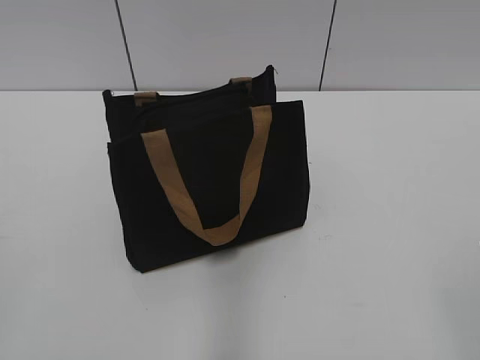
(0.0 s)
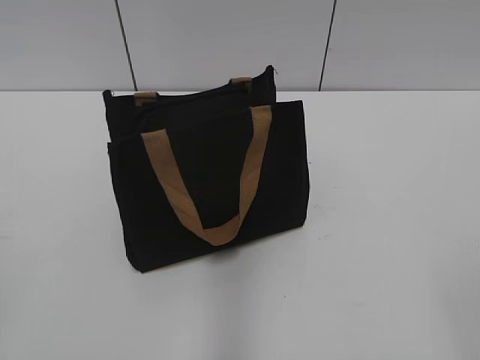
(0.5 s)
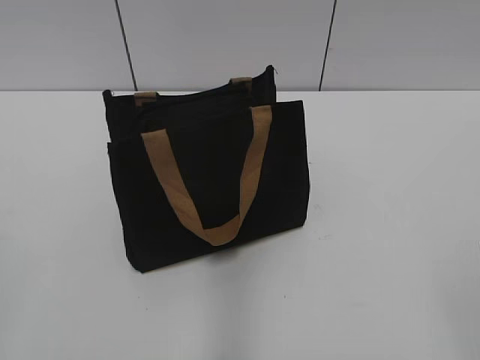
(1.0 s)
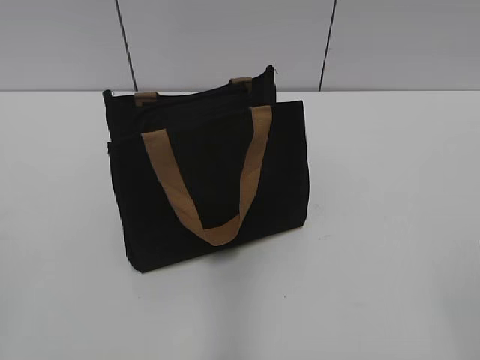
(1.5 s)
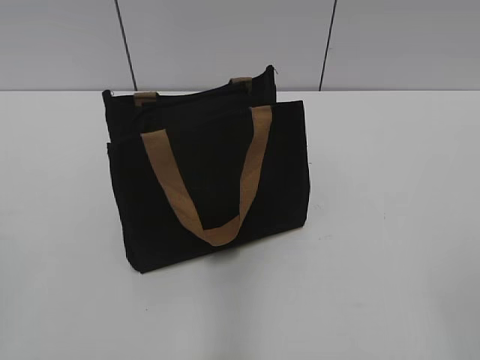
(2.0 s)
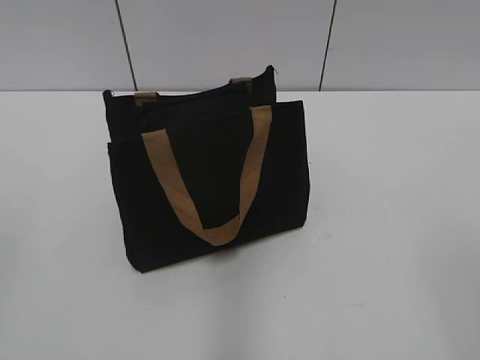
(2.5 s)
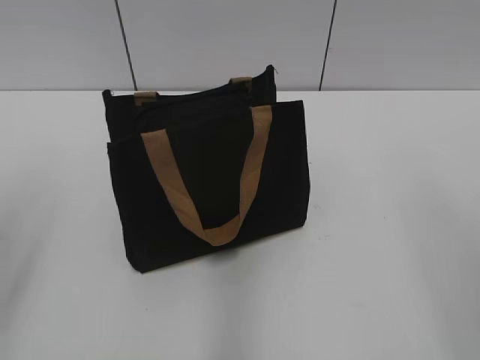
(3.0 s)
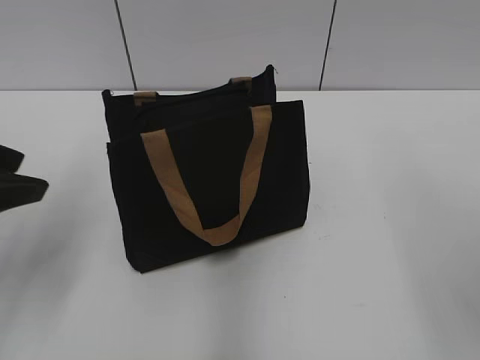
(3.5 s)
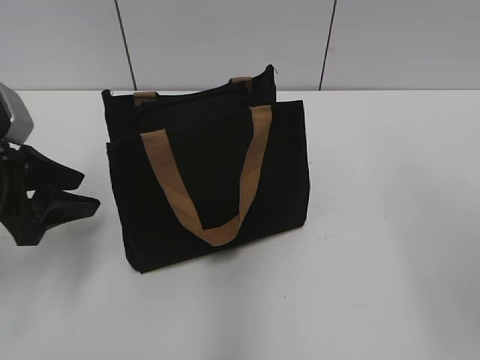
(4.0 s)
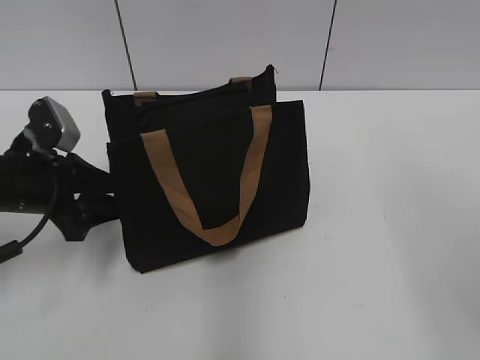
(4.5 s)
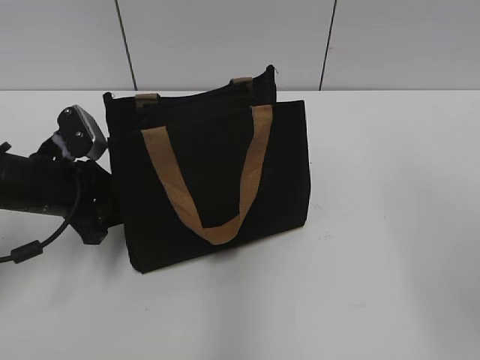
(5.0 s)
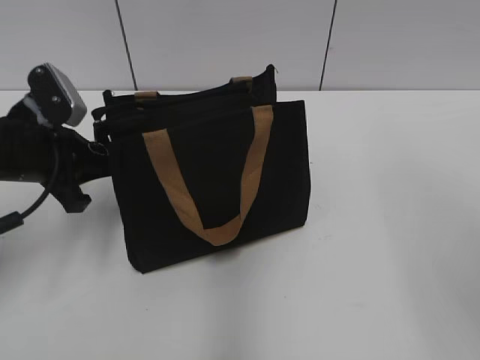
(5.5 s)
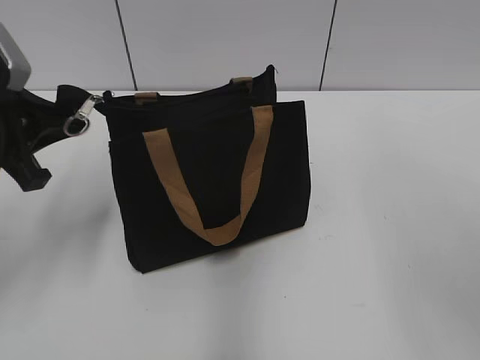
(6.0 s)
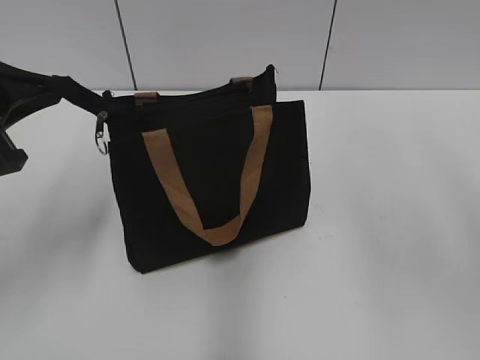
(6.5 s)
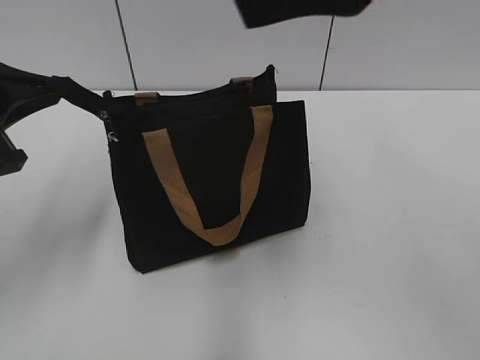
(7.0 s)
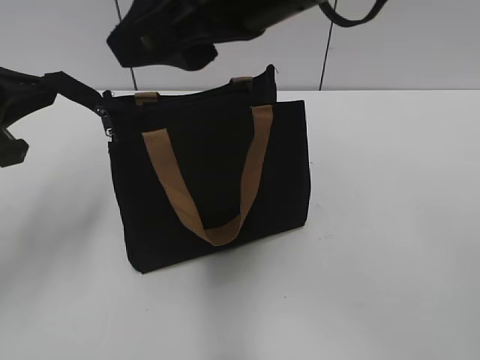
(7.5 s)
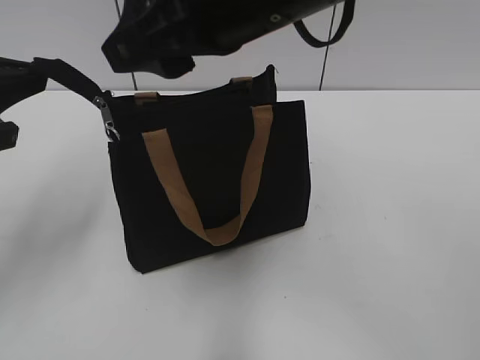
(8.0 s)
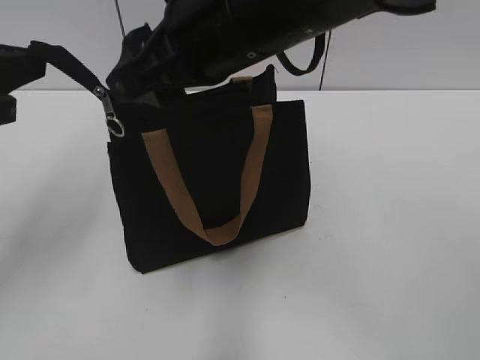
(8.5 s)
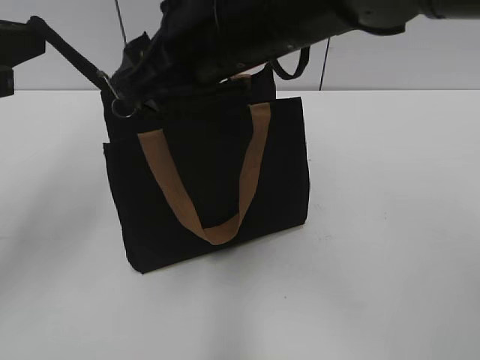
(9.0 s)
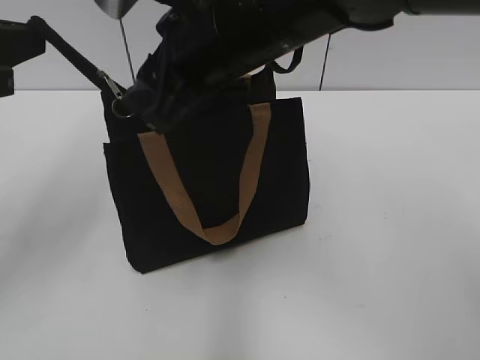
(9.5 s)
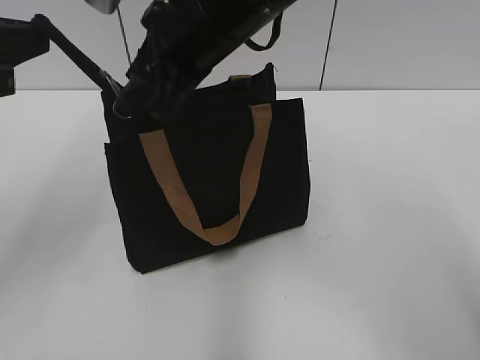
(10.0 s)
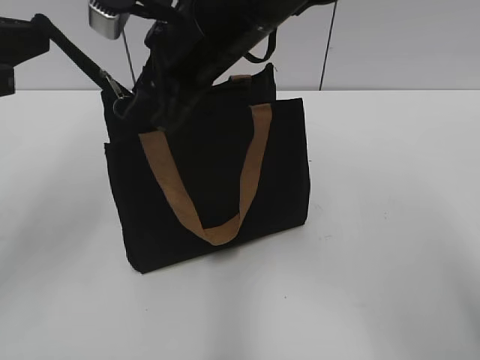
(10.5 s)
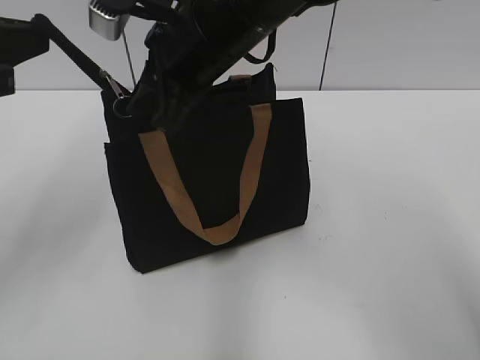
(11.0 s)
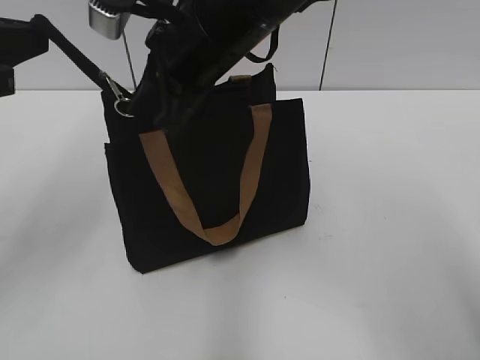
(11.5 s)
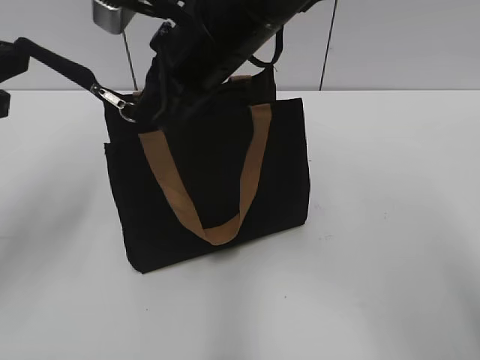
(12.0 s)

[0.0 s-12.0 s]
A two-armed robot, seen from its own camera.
2.0 to 4.0 s: The left gripper heads forward and downward, covering roughly 30 cm.
4.0 to 6.0 s: The left gripper is displaced upward by approximately 5 cm, and closes up.
6.0 to 8.0 s: The right gripper heads to the left and forward, covering roughly 25 cm.
8.0 to 10.0 s: The right gripper travels forward by roughly 5 cm.
10.0 to 12.0 s: The right gripper closes its fingers.

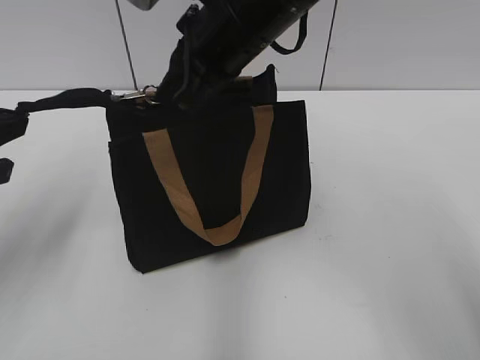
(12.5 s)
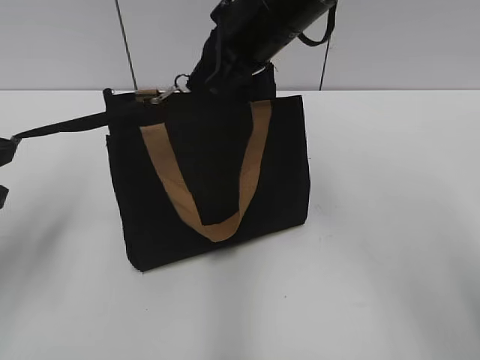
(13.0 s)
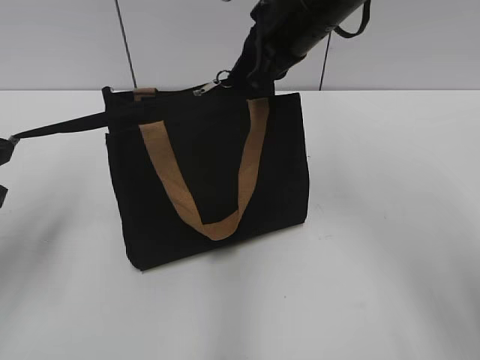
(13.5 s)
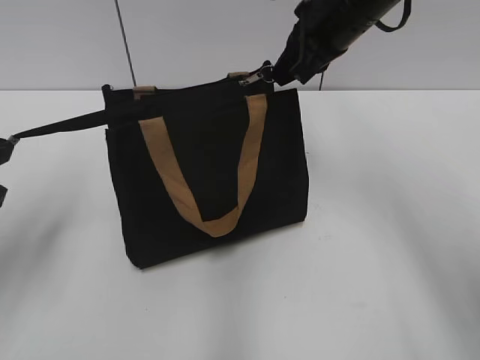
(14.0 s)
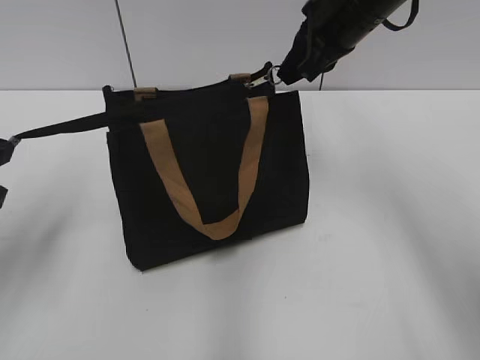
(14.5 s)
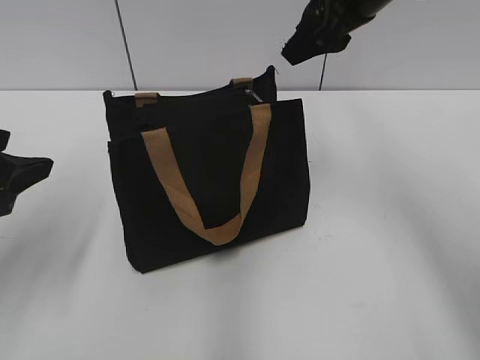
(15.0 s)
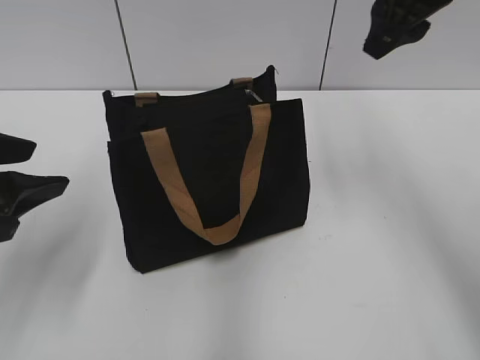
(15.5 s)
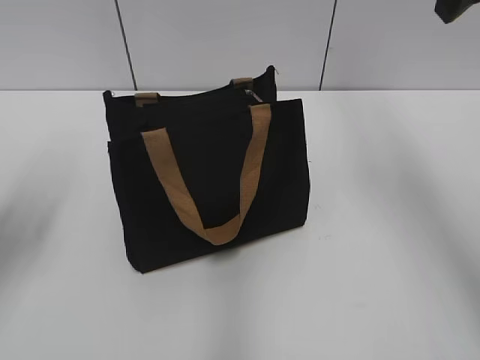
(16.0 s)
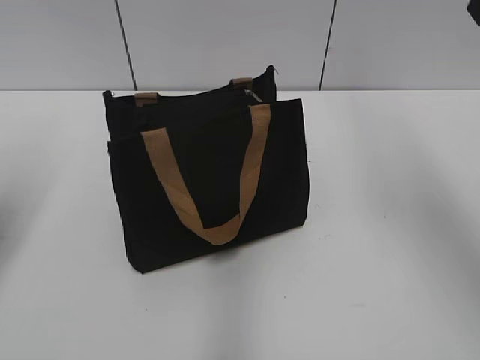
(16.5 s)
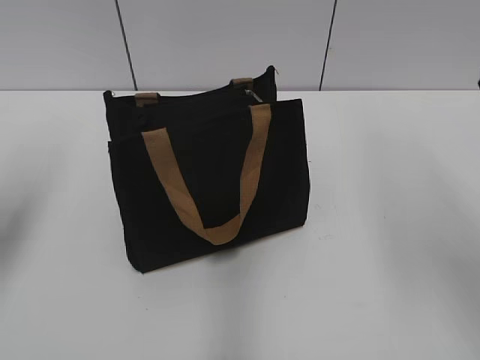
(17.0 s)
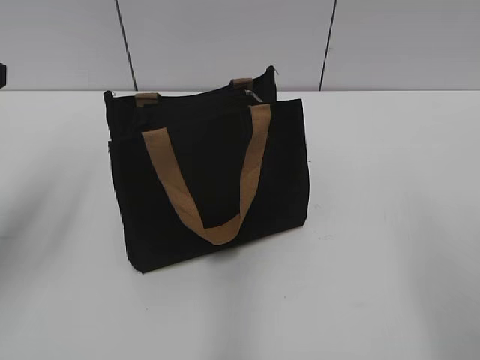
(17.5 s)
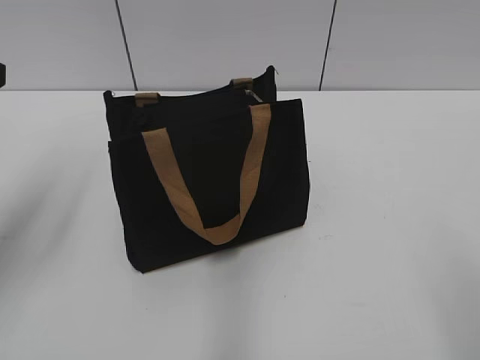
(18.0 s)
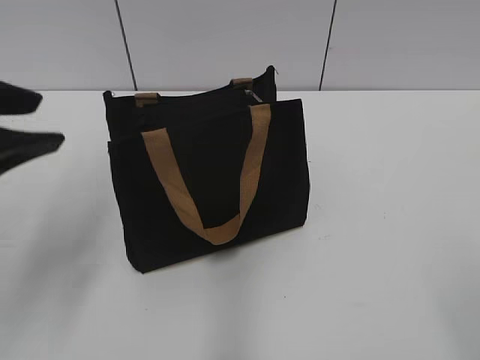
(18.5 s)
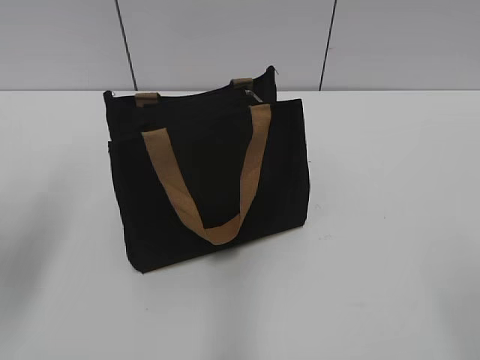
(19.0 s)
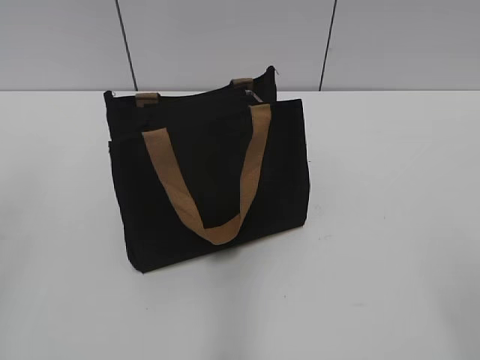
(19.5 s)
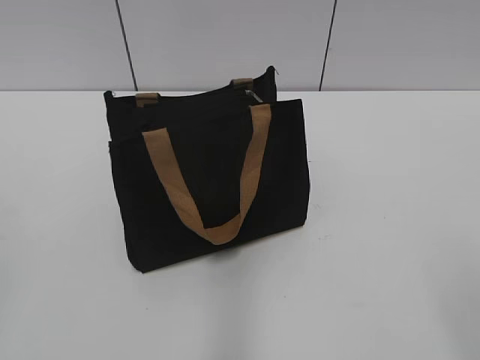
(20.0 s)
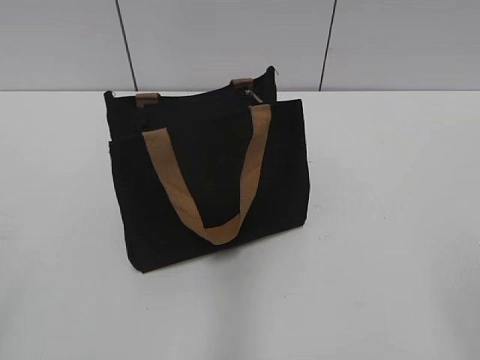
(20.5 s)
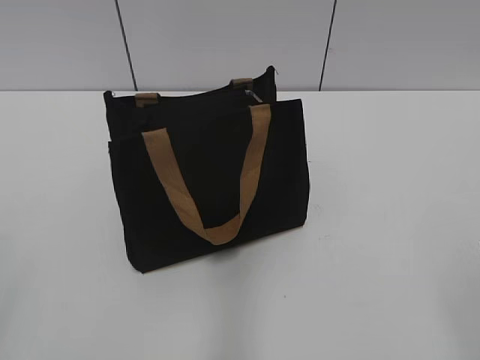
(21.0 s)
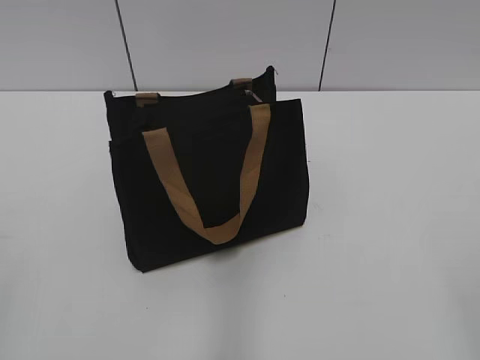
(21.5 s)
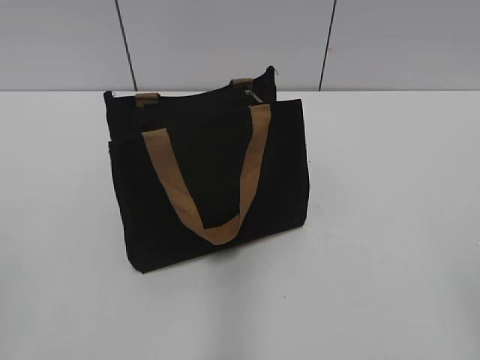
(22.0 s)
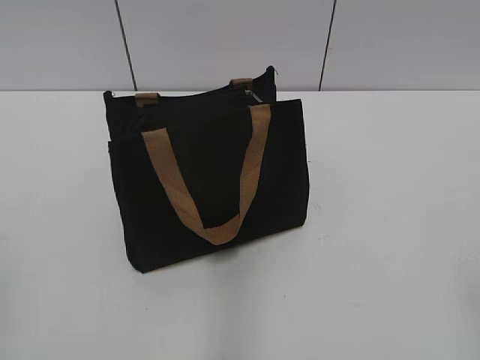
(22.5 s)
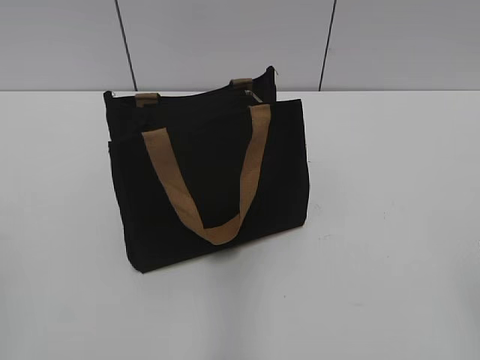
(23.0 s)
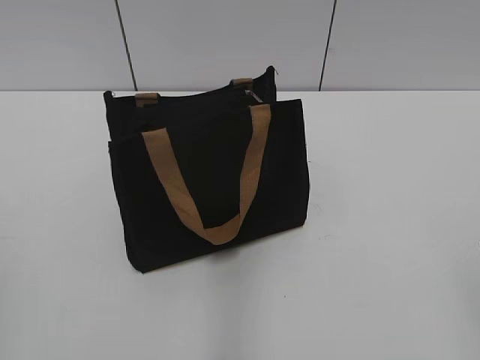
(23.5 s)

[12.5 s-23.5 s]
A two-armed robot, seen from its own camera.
Step, 12.5 to 14.5 s: Zip up the bag with your right hand.
12.5 to 14.5 s: The right gripper is displaced to the right and forward by about 15 cm.
14.5 to 16.0 s: The left gripper opens its fingers. Meanwhile the right gripper goes about 15 cm upward, to the right and backward, and opens.
16.0 to 18.0 s: The right gripper shifts approximately 30 cm backward.
18.0 to 20.0 s: The left gripper heads backward, covering roughly 20 cm.

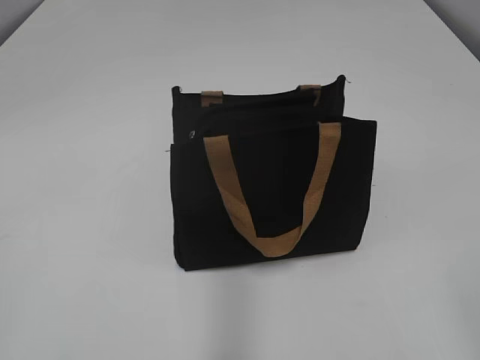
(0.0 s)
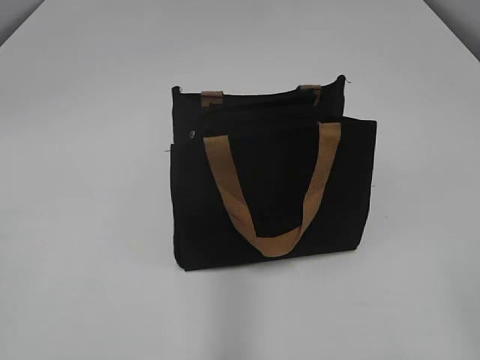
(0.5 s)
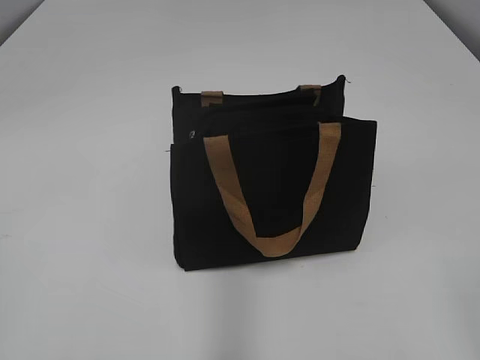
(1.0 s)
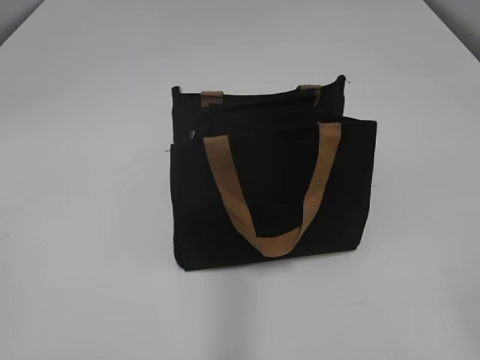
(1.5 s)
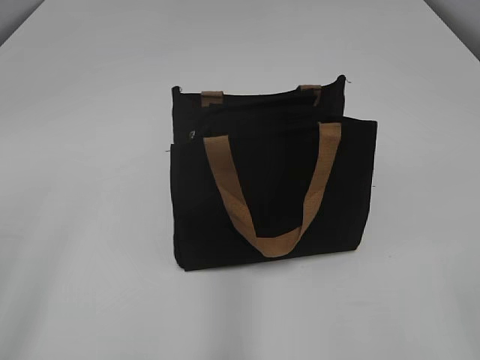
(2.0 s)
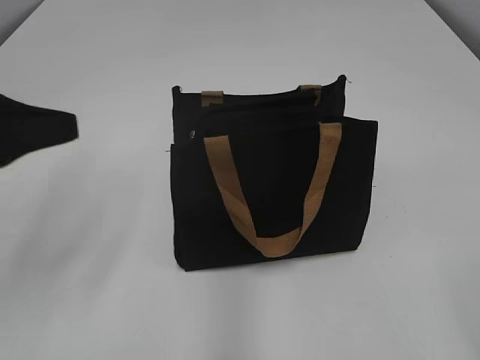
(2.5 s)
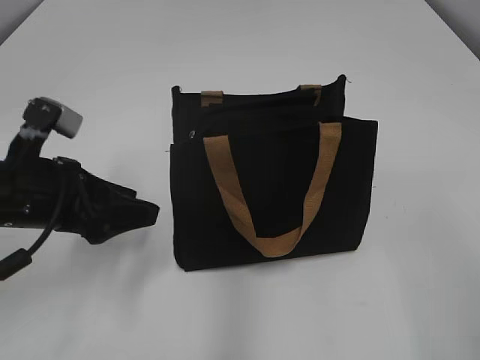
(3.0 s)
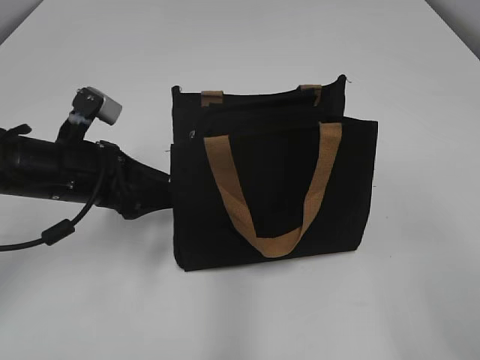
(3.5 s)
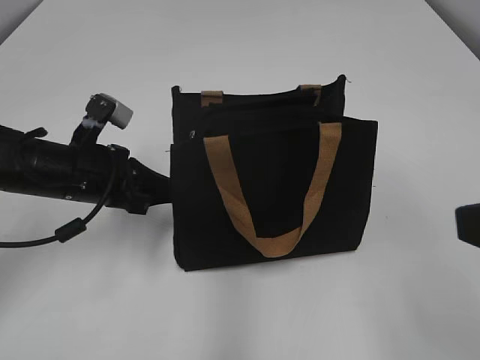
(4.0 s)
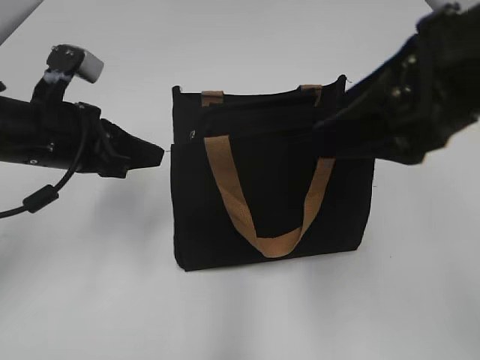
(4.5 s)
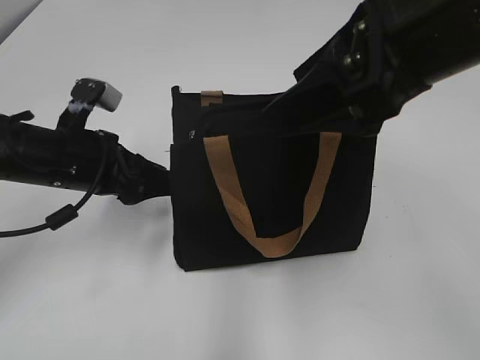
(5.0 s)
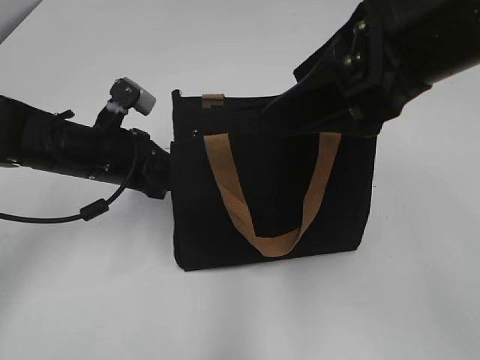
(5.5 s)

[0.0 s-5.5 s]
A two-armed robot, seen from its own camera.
2.0 to 3.5 s: The left gripper heads forward, downward and to the right, covering about 30 cm. The right gripper is displaced forward by roughly 10 cm.
3.5 to 5.5 s: The left gripper shifts by some 5 cm, and closes up. The right gripper moves forward and to the left, roughly 20 cm.
